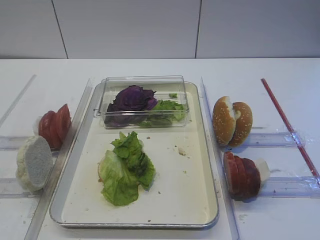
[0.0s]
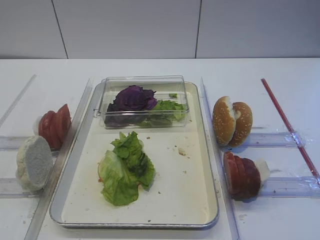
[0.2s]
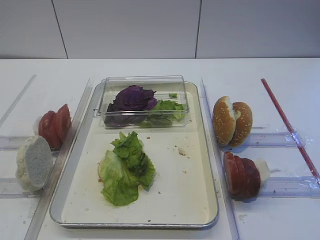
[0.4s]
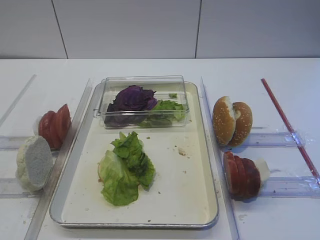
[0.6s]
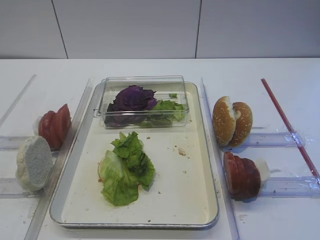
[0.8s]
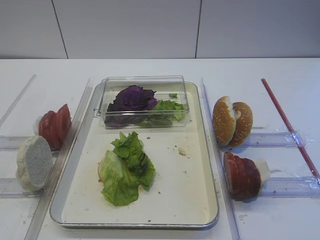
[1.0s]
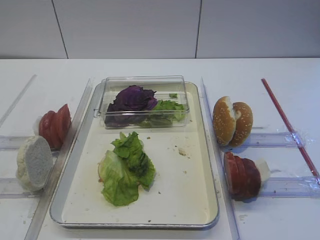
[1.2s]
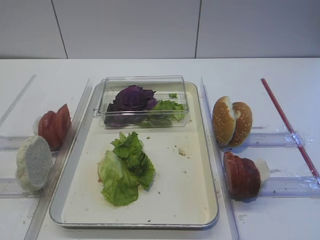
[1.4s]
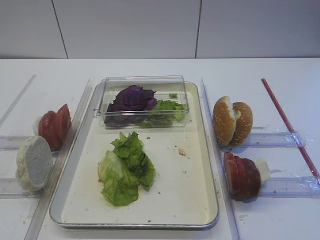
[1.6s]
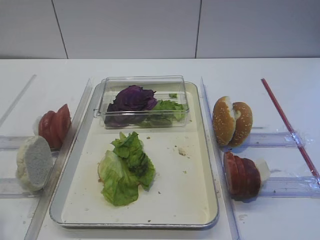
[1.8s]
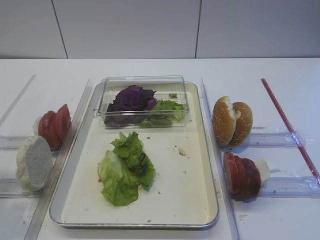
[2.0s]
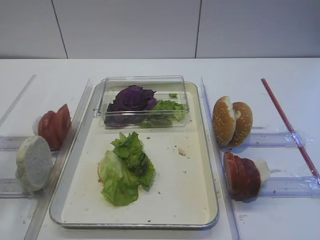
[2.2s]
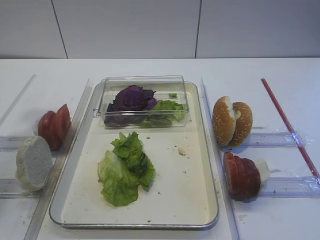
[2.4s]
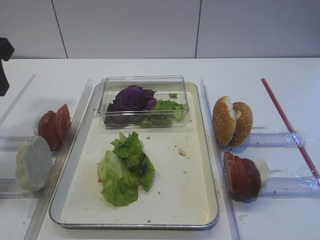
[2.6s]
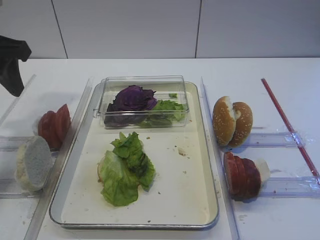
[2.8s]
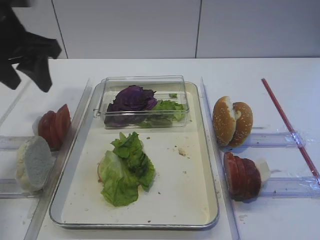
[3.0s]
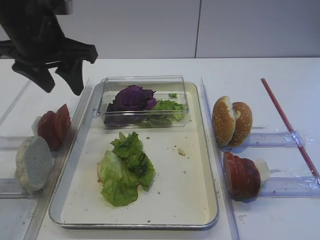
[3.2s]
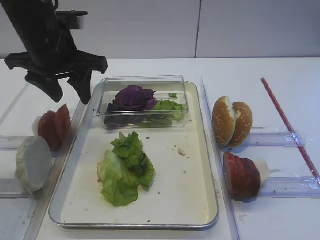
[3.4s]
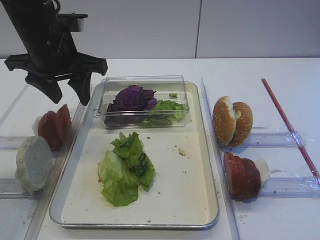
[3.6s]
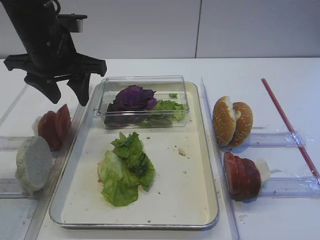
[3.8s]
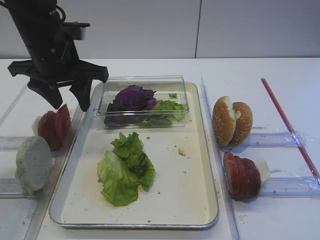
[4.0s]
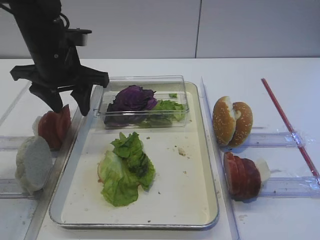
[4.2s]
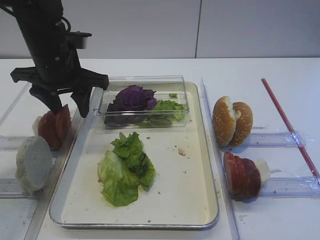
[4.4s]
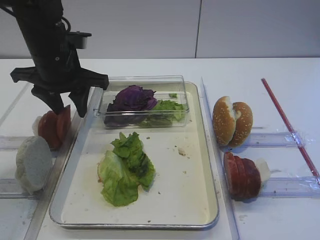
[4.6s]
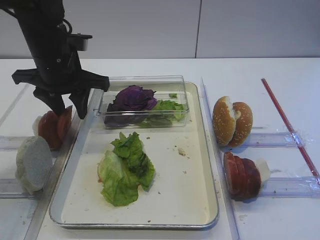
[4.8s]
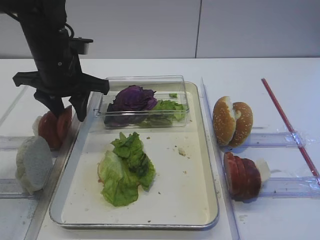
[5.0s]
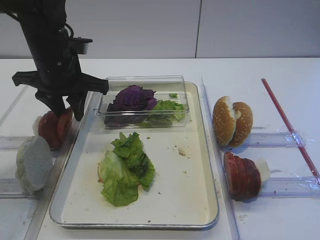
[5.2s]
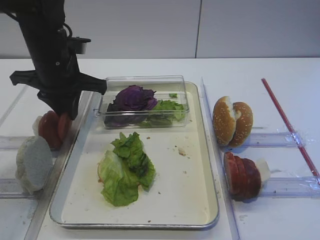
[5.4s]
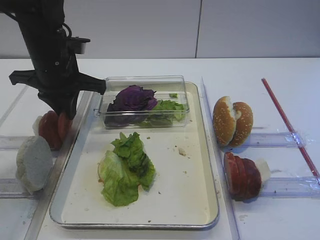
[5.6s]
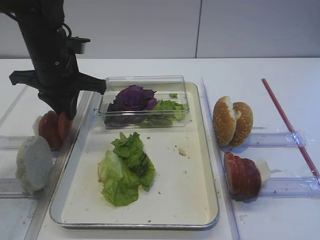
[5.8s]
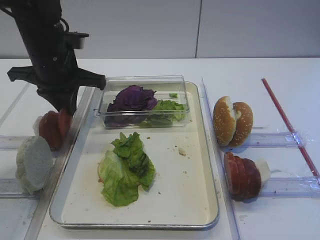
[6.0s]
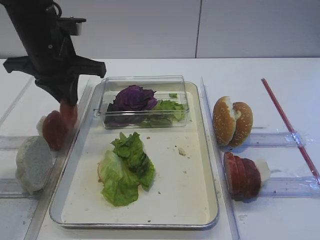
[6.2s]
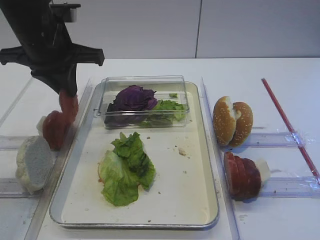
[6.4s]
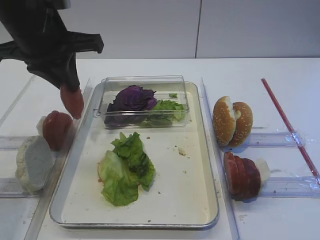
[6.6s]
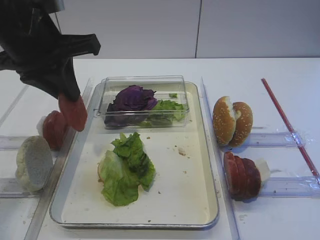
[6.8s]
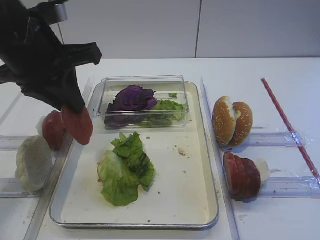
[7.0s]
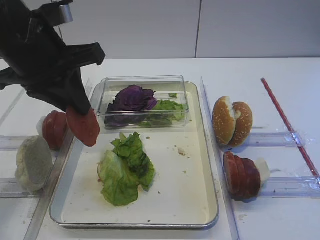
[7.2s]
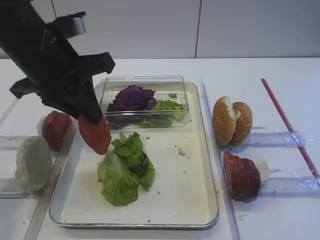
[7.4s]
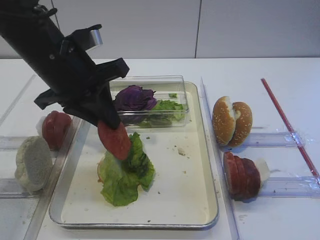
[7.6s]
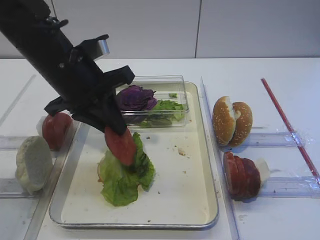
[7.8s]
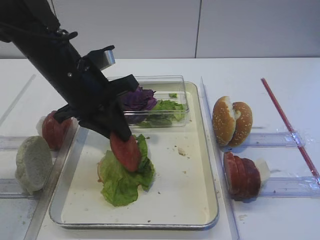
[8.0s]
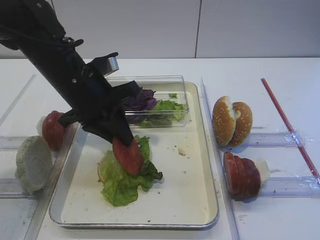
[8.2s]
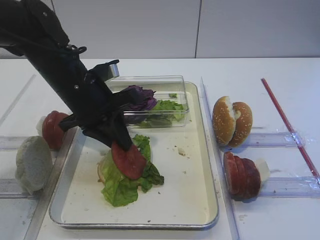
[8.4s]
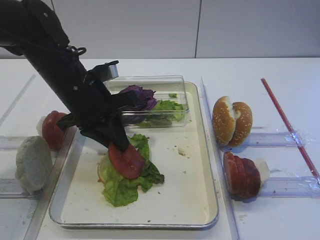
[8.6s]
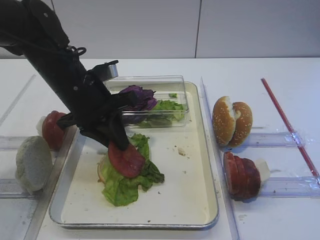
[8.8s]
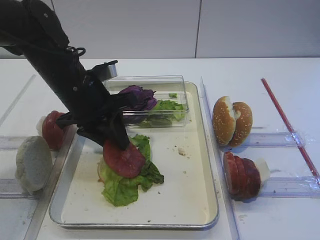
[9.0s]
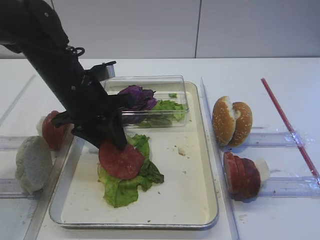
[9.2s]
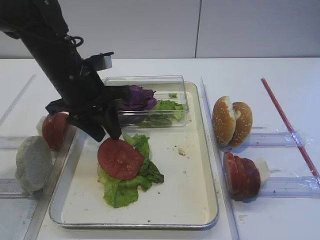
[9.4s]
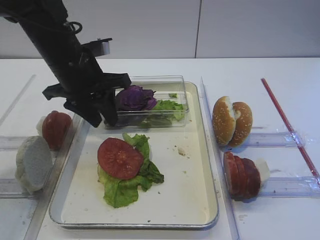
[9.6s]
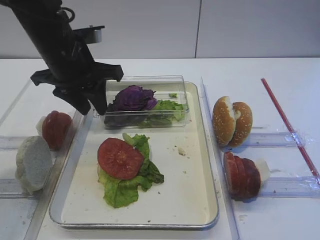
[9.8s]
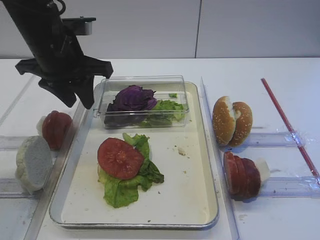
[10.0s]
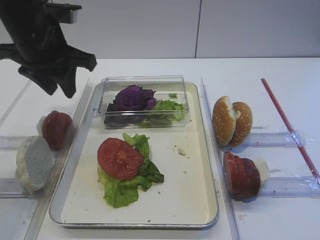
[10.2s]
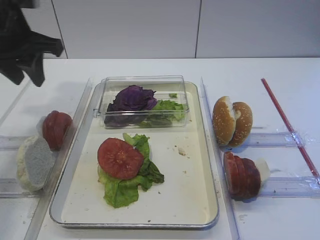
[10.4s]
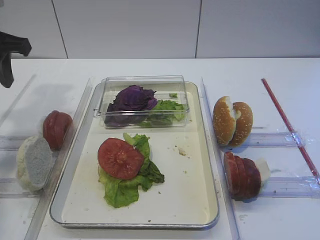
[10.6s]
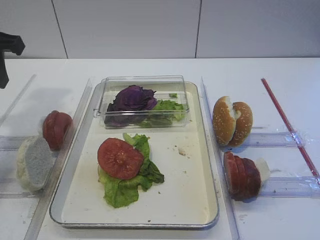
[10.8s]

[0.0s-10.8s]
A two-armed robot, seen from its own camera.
Step, 0.0s to 6.4s: Pick up the tomato slice with the left gripper.
Step, 6.6s to 9.4s: Place the tomato slice on the lettuce leaf with the left gripper.
1.6s to 3.0s: The left gripper goes about 30 cm forward.
3.0s to 4.6s: The left gripper shifts some 5 cm downward.
4.6s to 6.2s: The left gripper closes.
6.2s to 7.8s: The left gripper moves about 5 cm.
7.8s to 9.2s: The left gripper opens.
9.2s to 10.8s: The left gripper travels to the left and upward by some 20 cm.

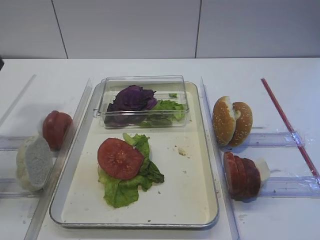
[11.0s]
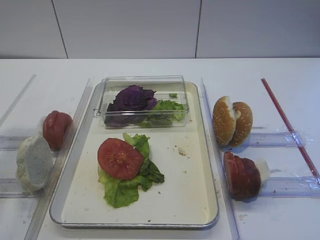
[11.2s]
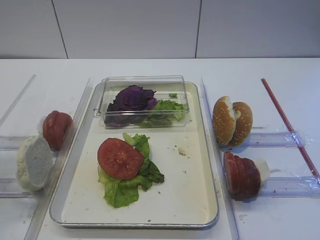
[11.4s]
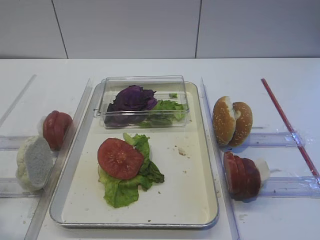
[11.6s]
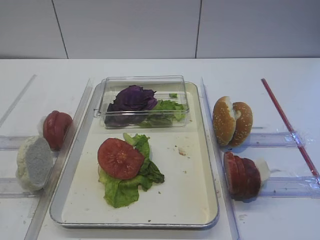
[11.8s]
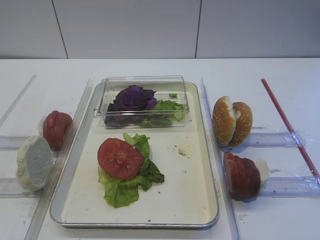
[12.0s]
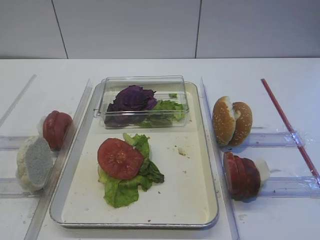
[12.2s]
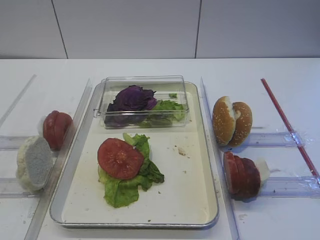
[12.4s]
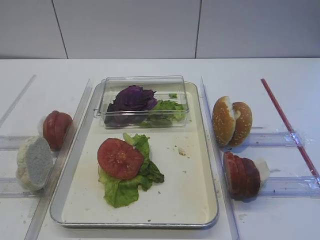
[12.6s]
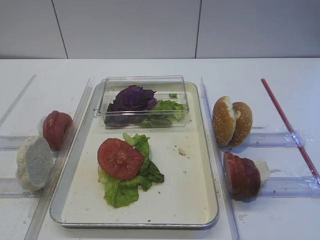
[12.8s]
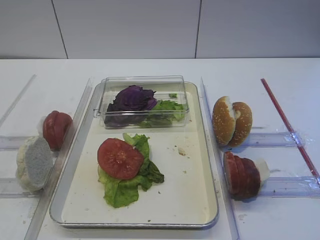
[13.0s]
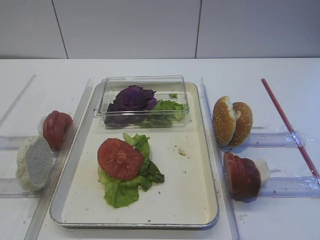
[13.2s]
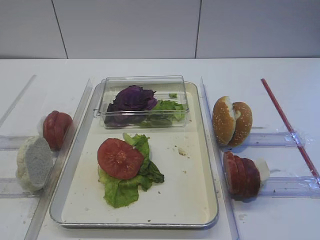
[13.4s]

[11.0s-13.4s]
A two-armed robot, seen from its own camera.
11.0s to 12.2s: The left gripper is displaced backward by some 25 cm.
12.2s to 13.4s: Neither gripper changes place.

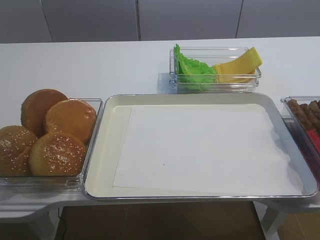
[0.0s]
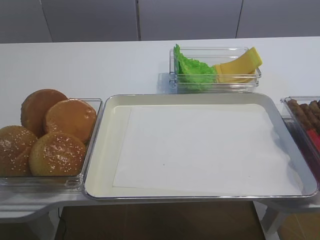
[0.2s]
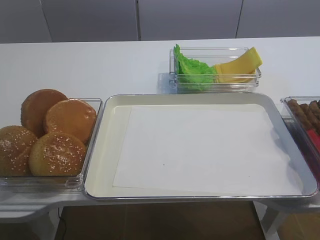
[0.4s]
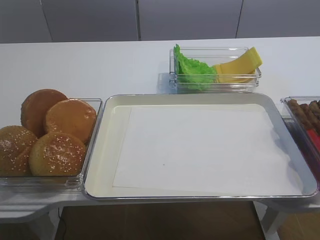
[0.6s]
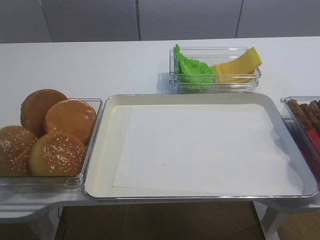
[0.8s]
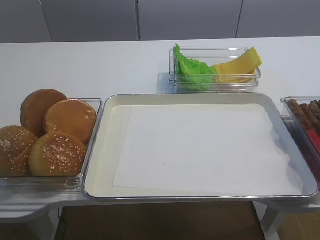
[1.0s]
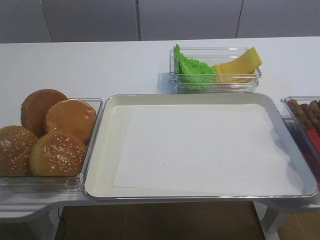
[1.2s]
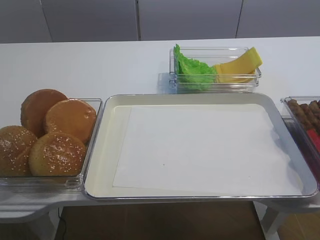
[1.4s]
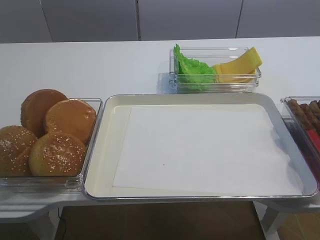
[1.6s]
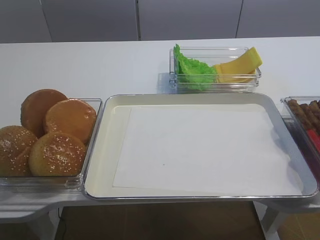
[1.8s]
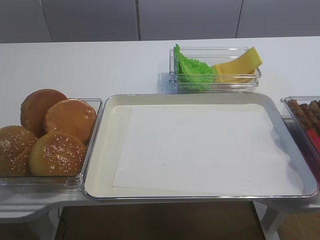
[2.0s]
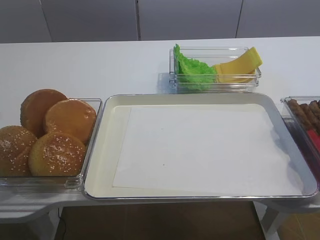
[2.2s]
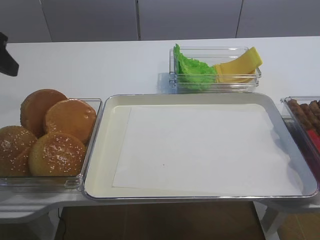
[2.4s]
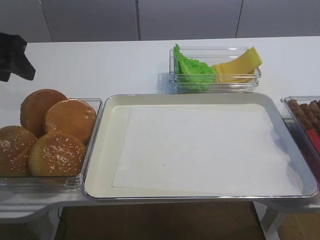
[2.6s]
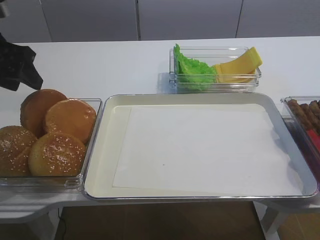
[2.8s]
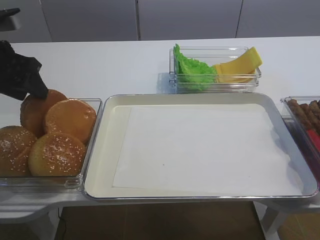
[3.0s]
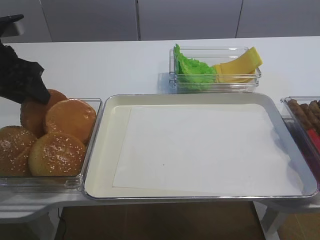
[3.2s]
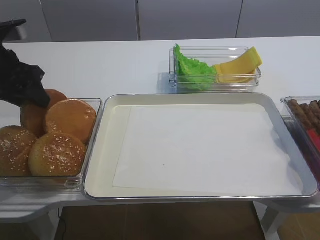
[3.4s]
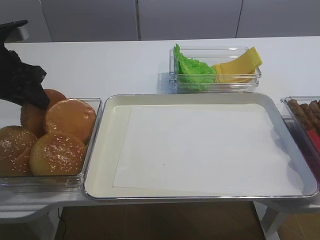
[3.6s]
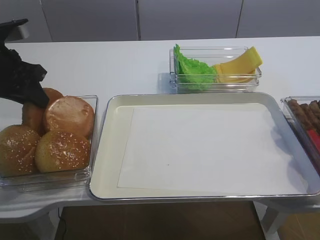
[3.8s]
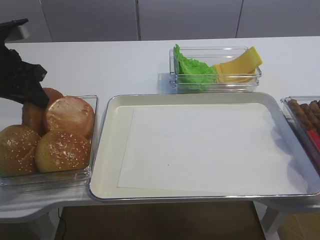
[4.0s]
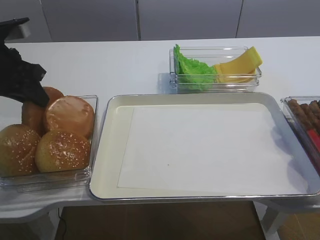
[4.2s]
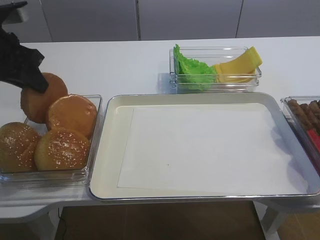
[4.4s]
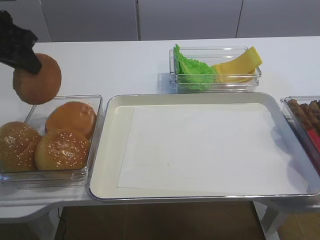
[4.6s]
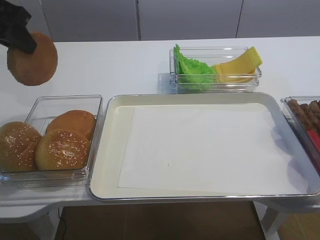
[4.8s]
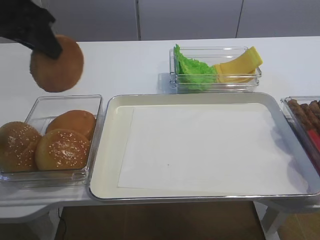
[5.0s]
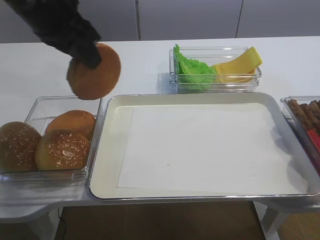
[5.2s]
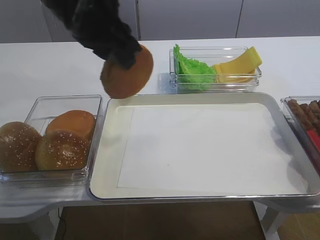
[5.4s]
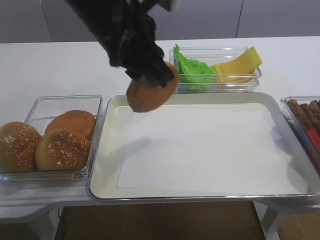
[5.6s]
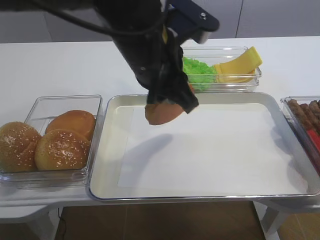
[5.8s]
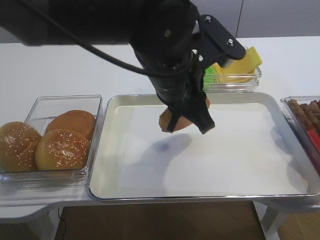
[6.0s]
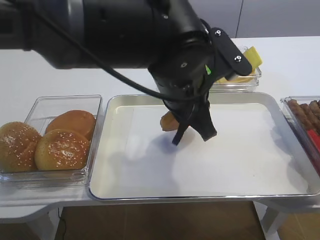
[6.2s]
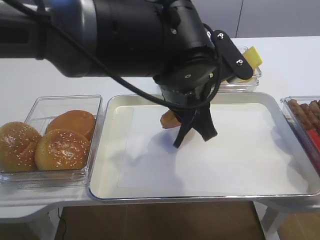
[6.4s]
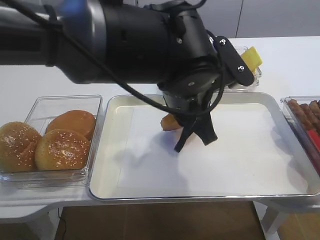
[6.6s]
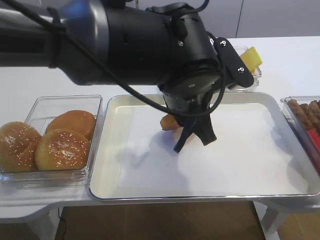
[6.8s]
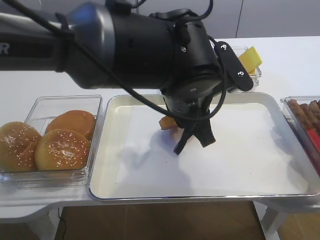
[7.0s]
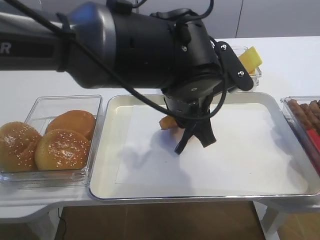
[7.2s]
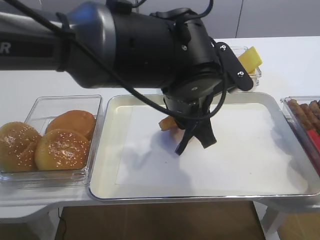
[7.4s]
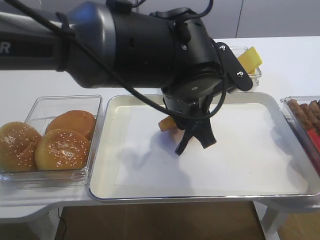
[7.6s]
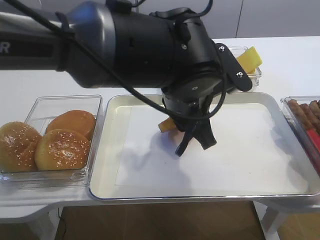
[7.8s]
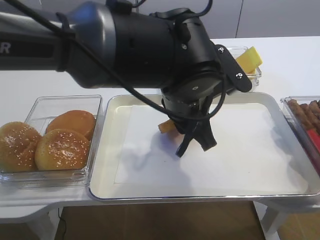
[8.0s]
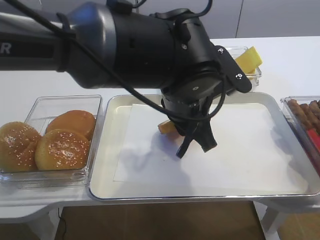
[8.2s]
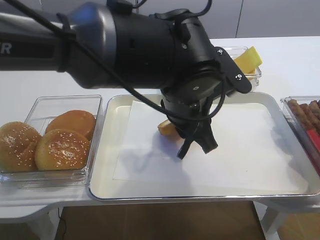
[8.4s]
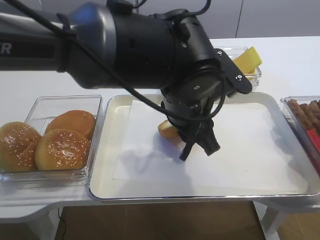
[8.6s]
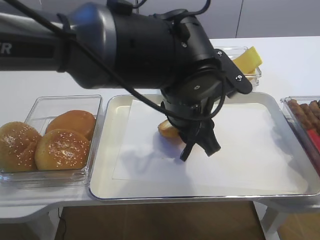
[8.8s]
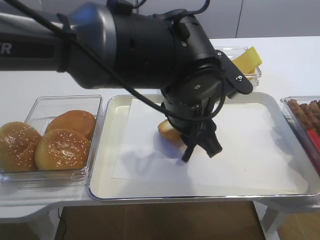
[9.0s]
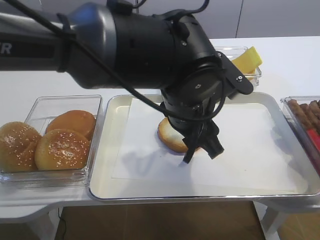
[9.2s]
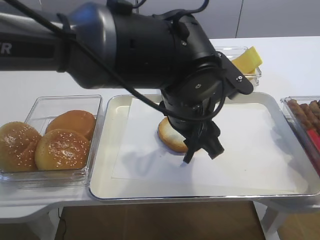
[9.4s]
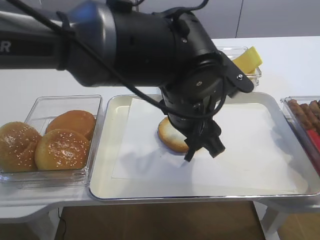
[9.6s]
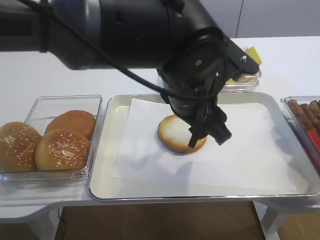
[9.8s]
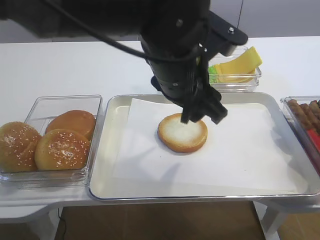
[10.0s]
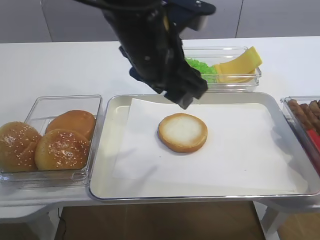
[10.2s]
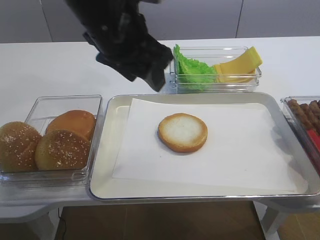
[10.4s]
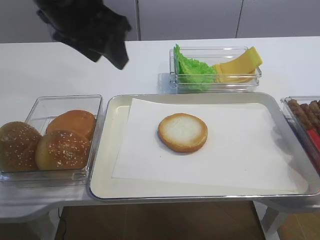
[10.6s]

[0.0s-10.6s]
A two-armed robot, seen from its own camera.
Step, 0.0s to 4.4s: Pick up the bread slice with the left gripper.
Step, 4.6s to 9.4s: Place the bread slice on the tray with the left gripper.
1.6s to 3.0s: The left gripper is displaced forward by about 30 cm.
3.0s to 4.6s: The left gripper closes.
4.6s to 6.0s: The left gripper goes approximately 25 cm to the right.
7.6s to 9.0s: The left gripper opens up.
9.0s to 10.6s: The left gripper shifts about 20 cm to the left and upward.
